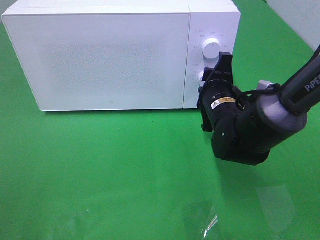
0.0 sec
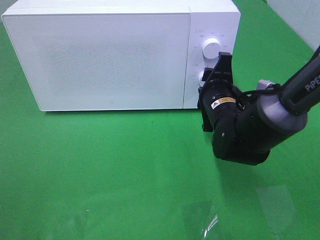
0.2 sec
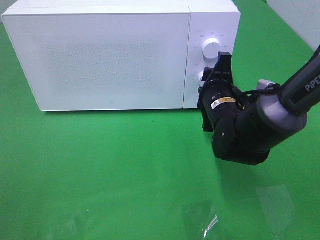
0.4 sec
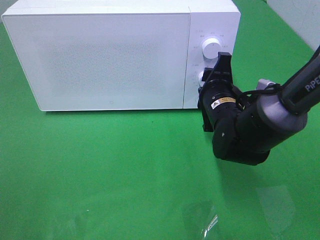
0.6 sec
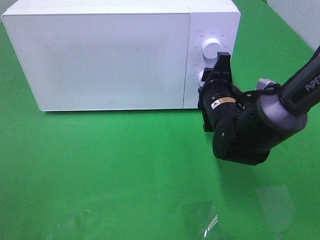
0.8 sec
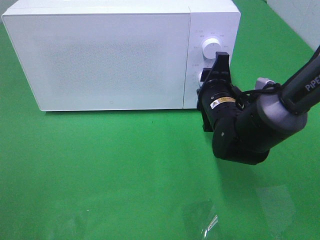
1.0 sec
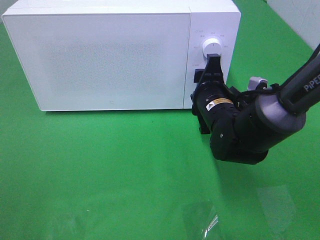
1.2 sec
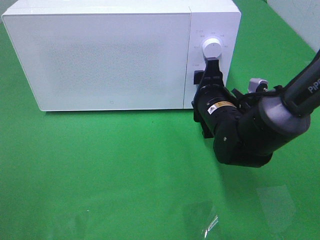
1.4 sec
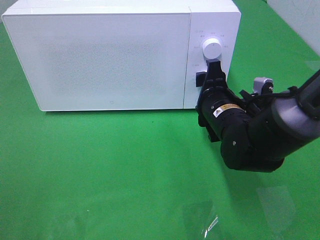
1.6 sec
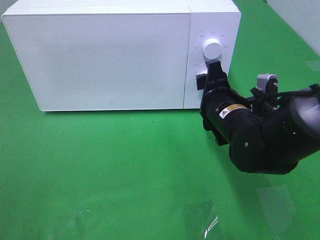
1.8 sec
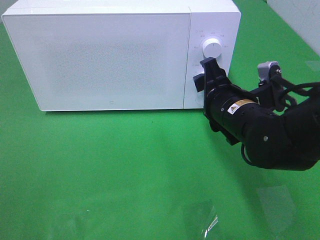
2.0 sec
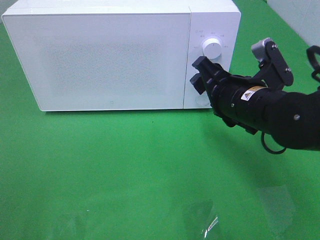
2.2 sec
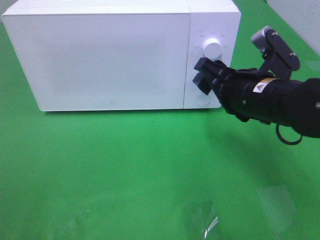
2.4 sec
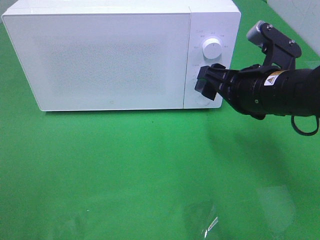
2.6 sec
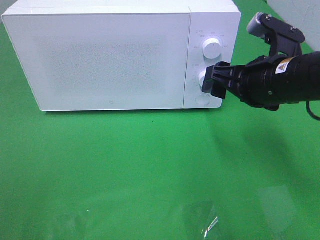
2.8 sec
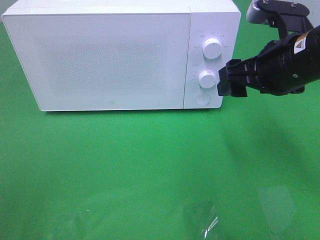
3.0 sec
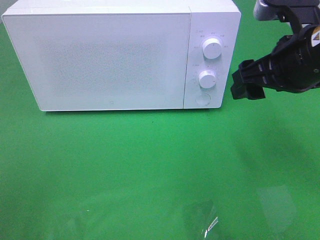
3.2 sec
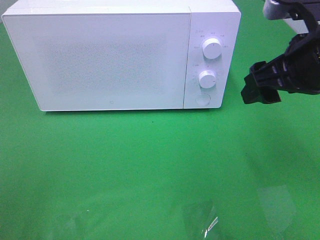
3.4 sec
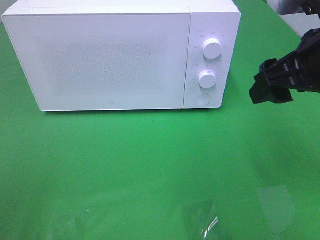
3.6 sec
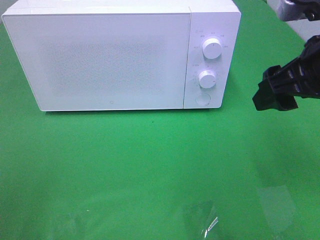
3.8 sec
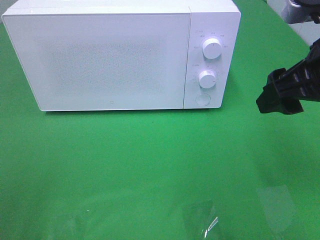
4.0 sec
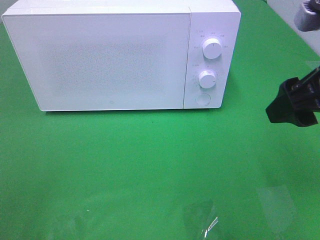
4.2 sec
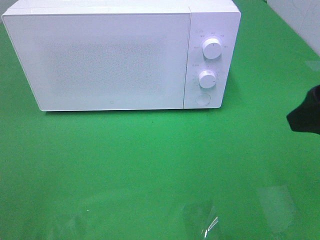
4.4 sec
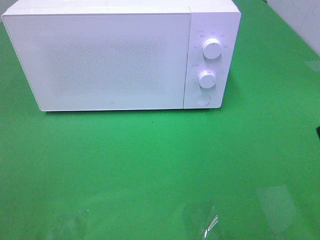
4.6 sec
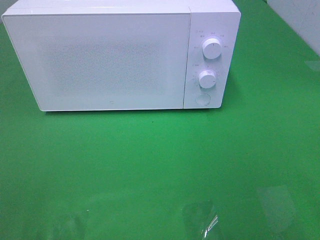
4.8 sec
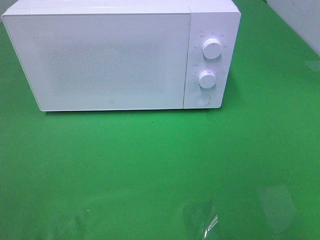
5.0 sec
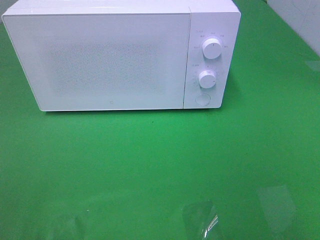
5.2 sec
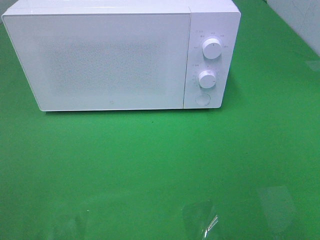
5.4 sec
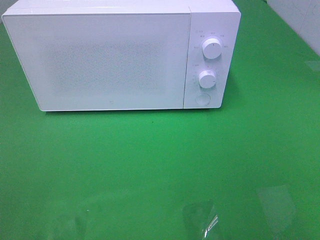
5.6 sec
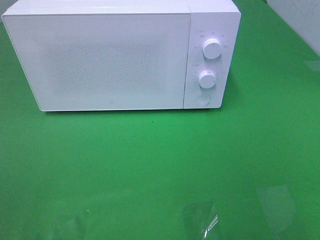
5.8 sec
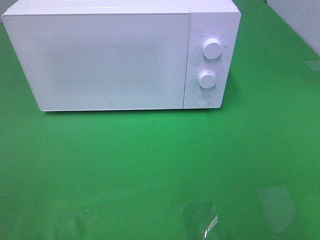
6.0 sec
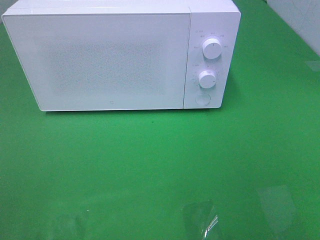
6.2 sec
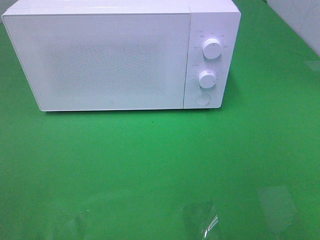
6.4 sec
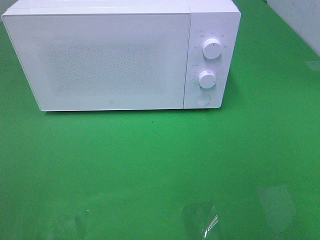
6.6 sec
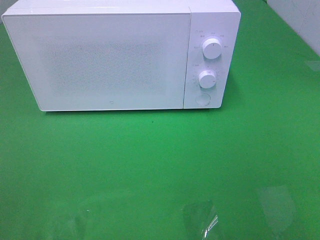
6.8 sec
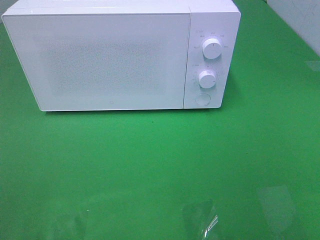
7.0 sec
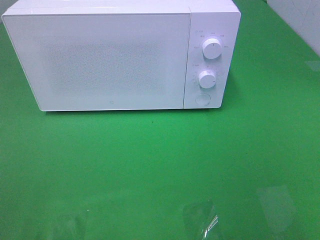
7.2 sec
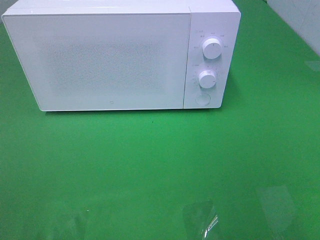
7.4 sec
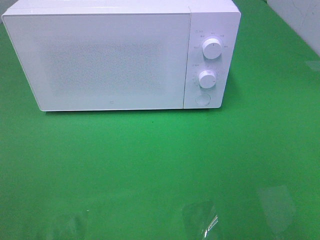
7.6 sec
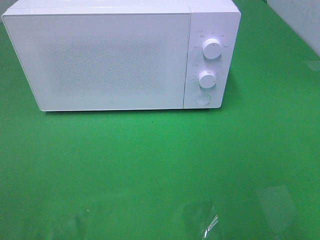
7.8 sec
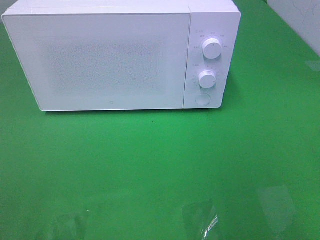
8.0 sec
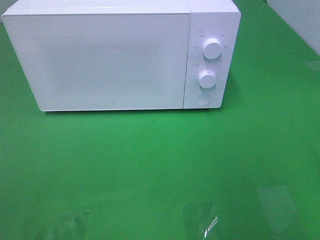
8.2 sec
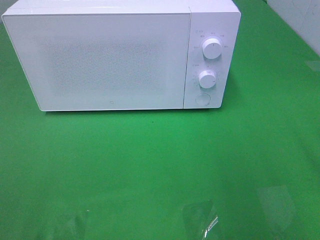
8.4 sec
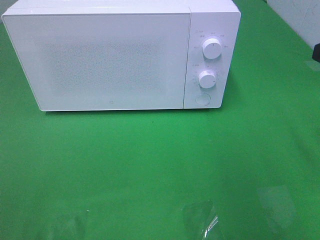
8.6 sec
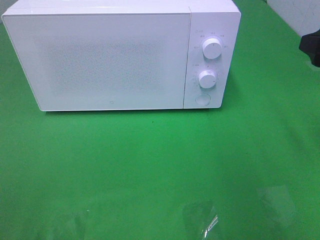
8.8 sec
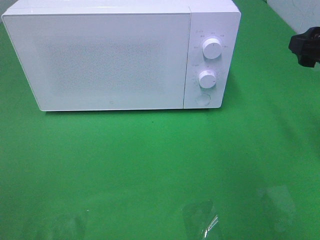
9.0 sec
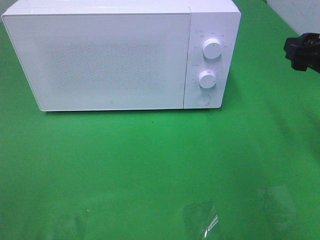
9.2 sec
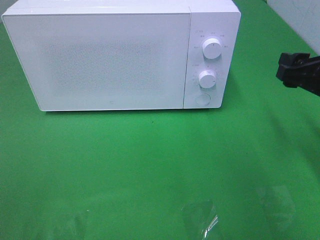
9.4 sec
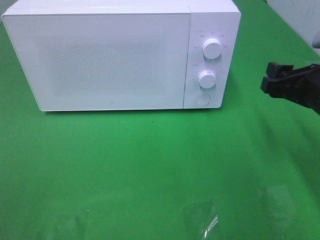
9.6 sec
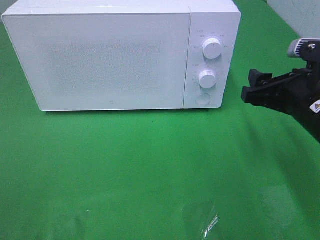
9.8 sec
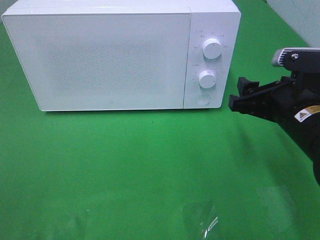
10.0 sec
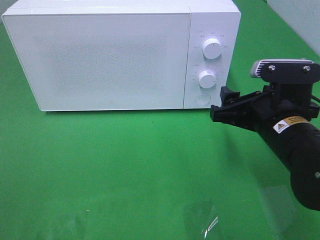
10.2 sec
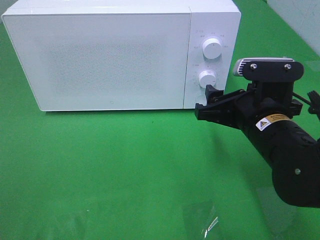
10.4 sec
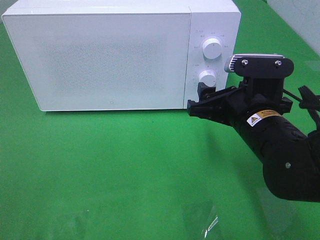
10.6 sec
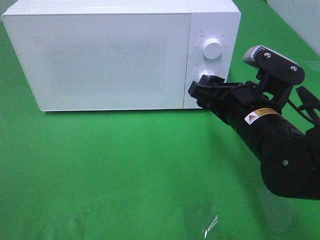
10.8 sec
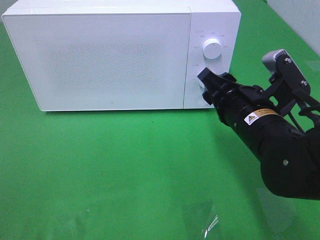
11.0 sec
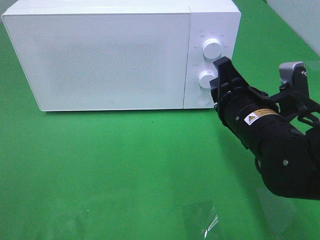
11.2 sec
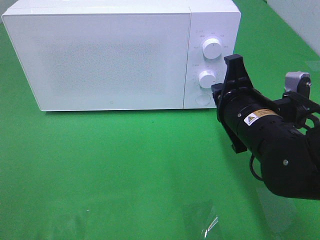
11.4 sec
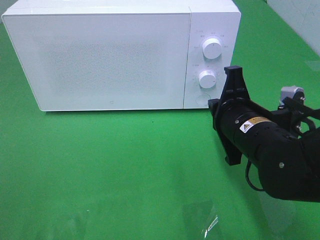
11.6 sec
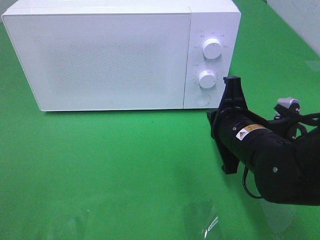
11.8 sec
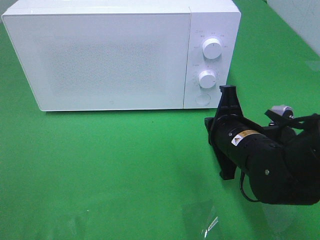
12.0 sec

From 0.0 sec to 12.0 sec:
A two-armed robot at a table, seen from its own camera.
Task of the whole recording: Heat the burger.
From 0.0 sec to 1.6 sec: The grippers move only a little.
From 1.6 sec to 3.0 sec: The right gripper heads upward and to the right, covering approximately 15 cm.
From 3.0 sec to 4.4 sec: The right gripper moves backward and upward, approximately 10 cm.
From 4.4 sec to 6.0 sec: The right gripper moves backward, roughly 15 cm.
From 7.6 sec to 9.0 sec: The right gripper moves forward, approximately 20 cm.
From 9.0 sec to 10.4 sec: The right gripper shifts approximately 15 cm to the left and downward.
From 10.4 sec to 12.0 sec: The right gripper shifts by about 5 cm, and closes up.

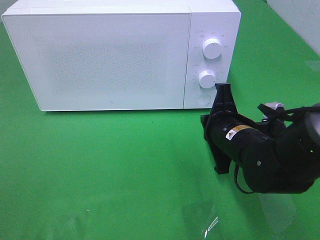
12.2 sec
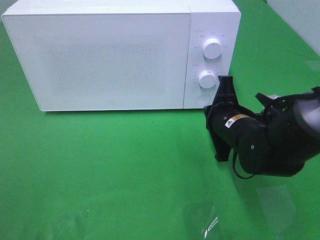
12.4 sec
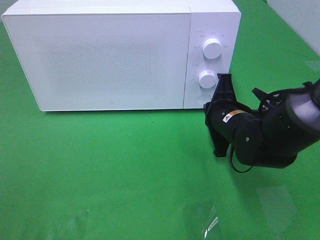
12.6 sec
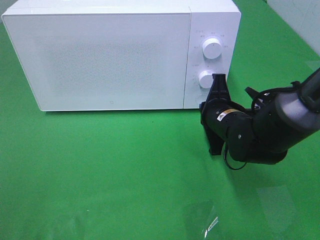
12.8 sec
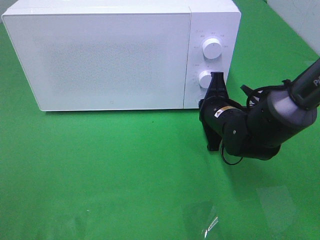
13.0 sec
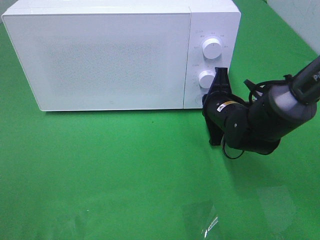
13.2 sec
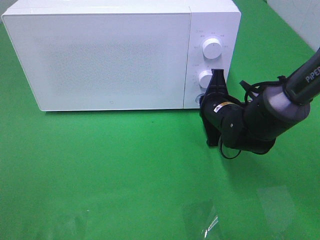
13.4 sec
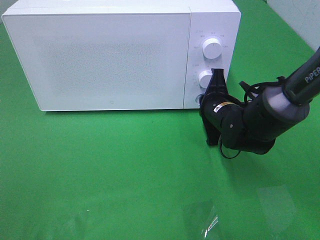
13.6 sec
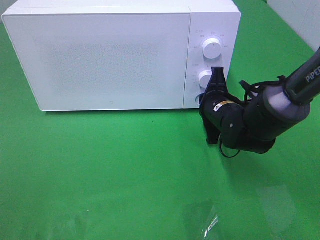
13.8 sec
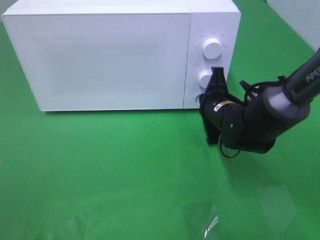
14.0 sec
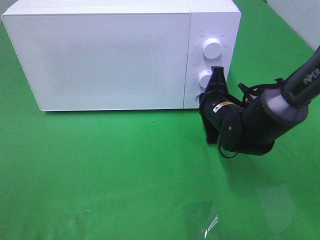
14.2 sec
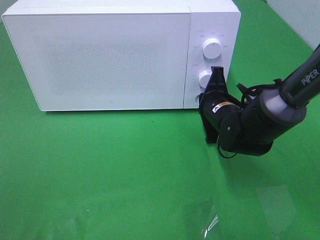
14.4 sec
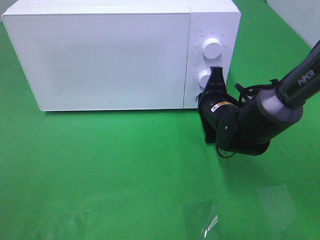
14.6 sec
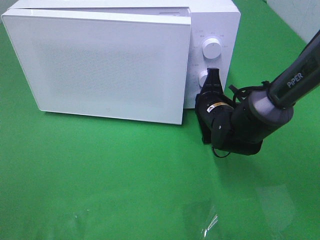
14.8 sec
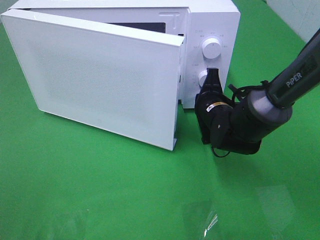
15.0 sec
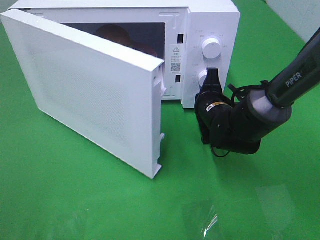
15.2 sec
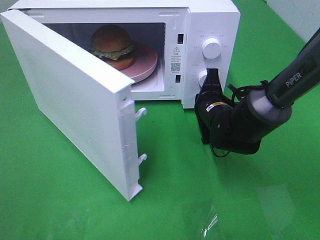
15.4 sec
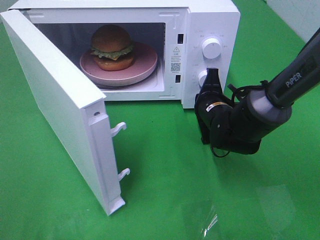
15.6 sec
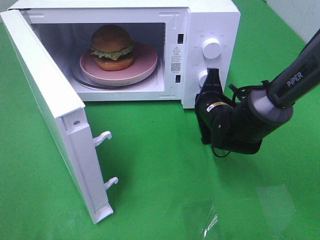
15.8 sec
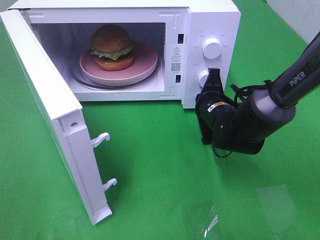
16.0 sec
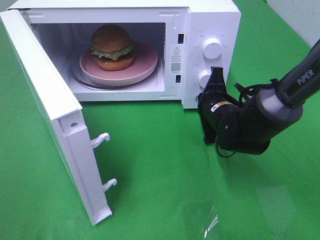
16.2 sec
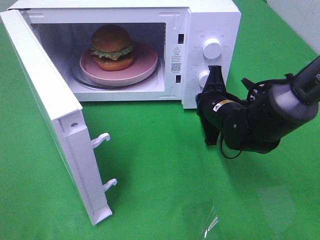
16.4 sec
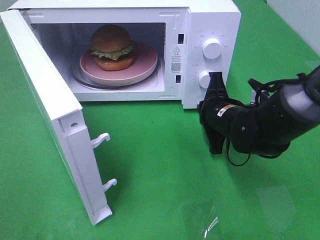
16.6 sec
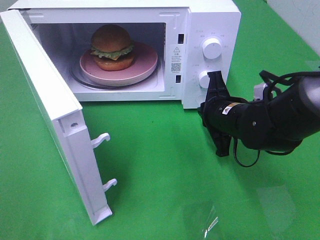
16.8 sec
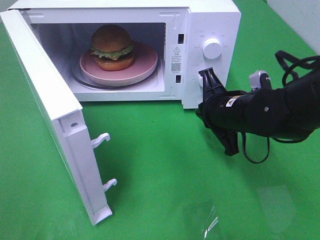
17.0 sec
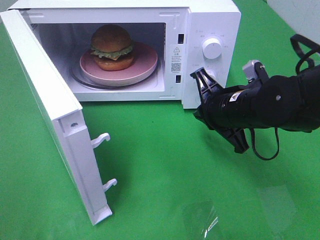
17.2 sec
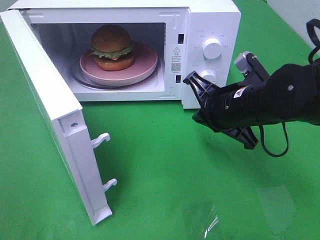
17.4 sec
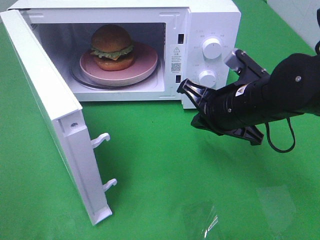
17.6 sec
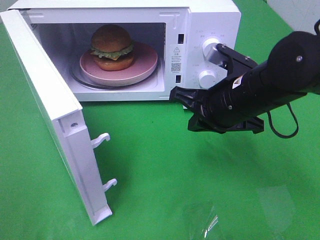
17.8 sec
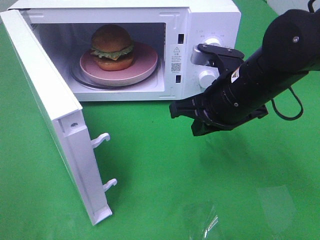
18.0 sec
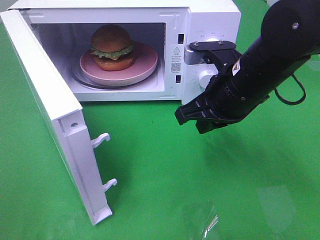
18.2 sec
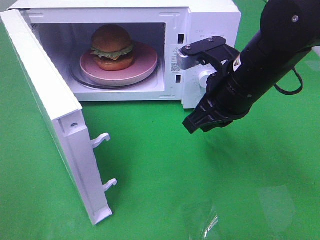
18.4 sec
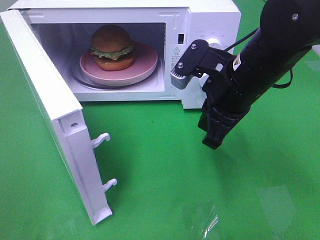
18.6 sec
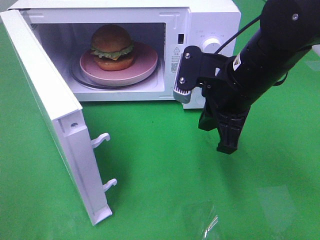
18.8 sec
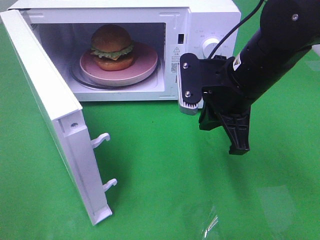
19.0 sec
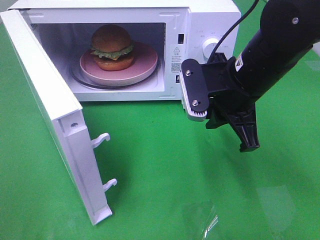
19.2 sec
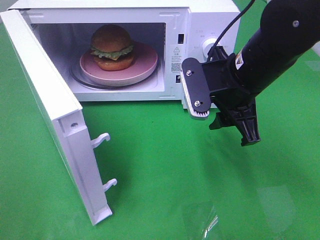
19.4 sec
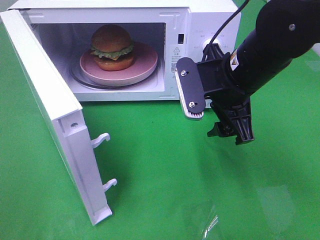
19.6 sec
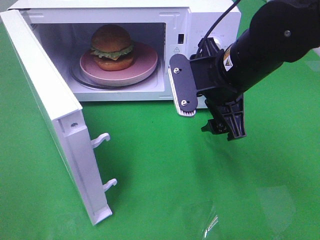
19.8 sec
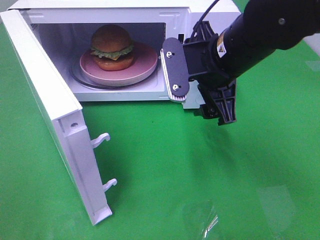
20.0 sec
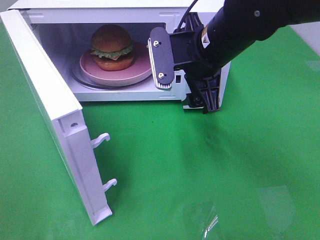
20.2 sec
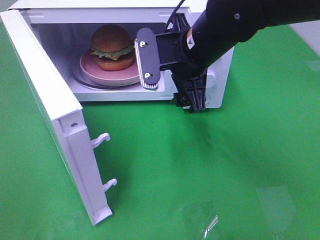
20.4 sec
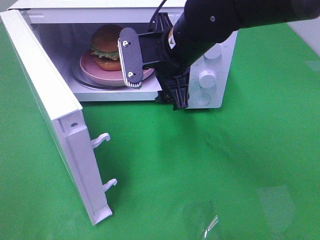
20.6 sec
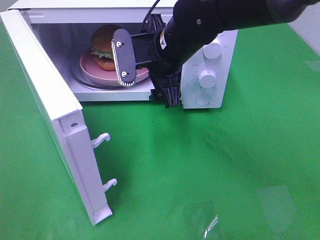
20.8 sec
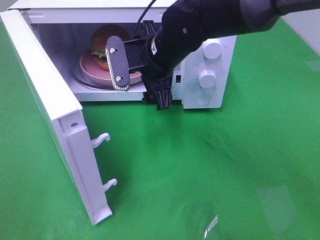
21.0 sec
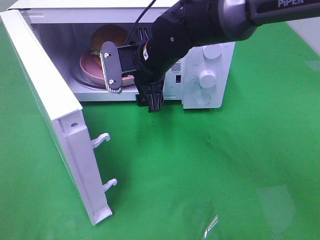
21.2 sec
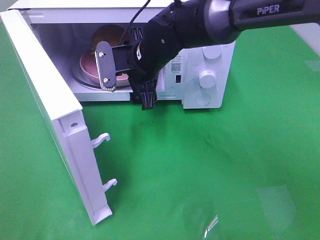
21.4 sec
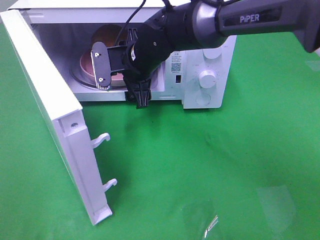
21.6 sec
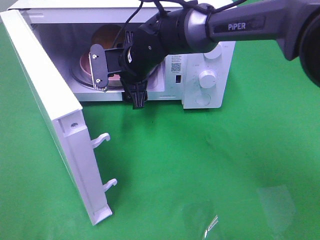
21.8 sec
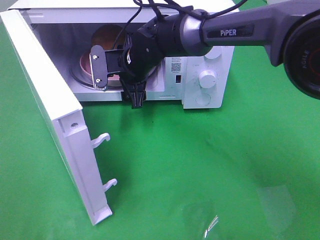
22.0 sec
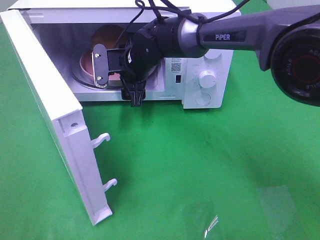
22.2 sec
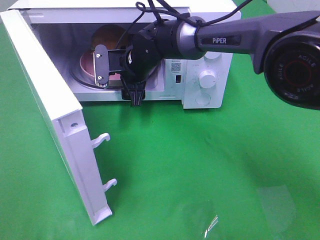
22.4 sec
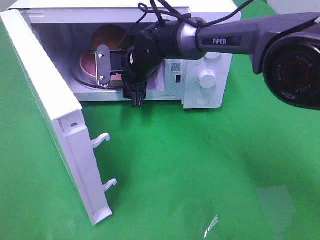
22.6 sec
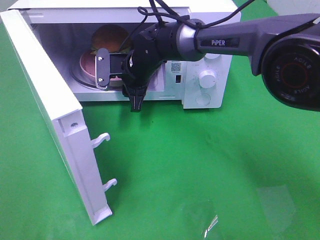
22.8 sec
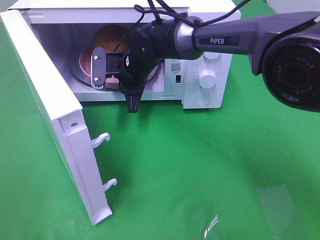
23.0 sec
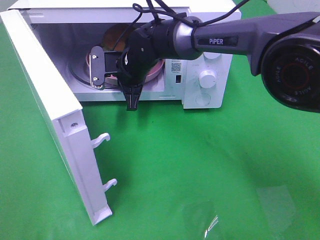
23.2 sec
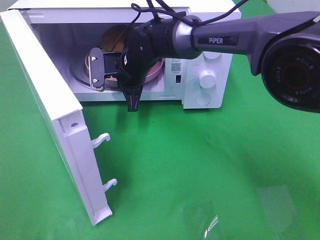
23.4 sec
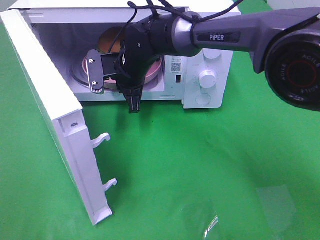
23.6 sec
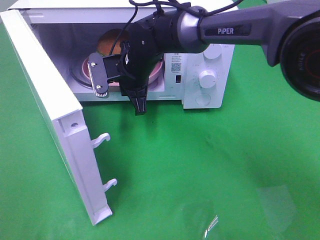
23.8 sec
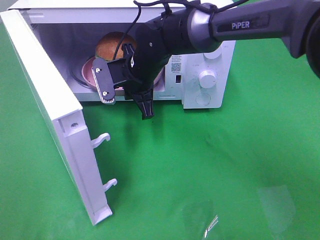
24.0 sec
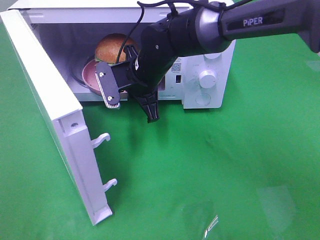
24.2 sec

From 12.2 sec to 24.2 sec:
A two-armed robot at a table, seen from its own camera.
Task of the whole recording: Heat the burger.
Step, from 12.2 sec to 16.4 sec: Right hand: press the switch.
Step, from 16.6 sec to 23.2 sec: Right hand: grab the plate with the hamburger.
From 12.2 sec to 13.8 sec: The right gripper heads forward, covering some 10 cm.
From 16.6 sec to 18.2 sec: The right gripper heads upward, covering some 10 cm.
From 18.2 sec to 19.8 sec: The right gripper opens up.
From 19.8 sec to 21.2 sec: The right gripper travels to the left and forward by about 15 cm.
From 21.2 sec to 22.6 sec: The right gripper shifts approximately 5 cm forward.
From 22.6 sec to 24.2 sec: The right gripper is displaced backward by approximately 5 cm, and closes its fingers.
